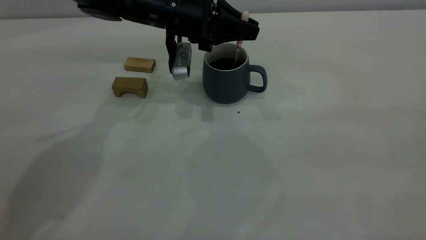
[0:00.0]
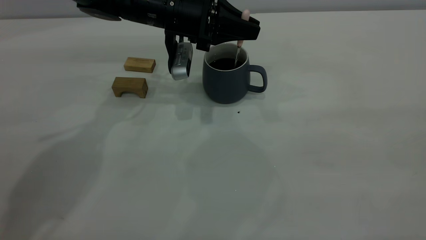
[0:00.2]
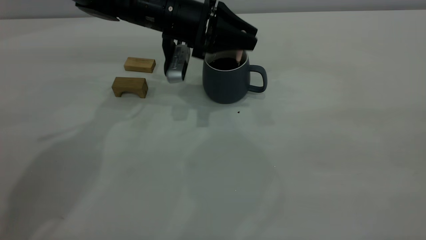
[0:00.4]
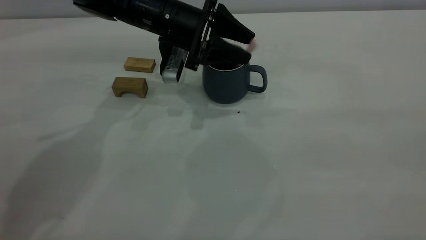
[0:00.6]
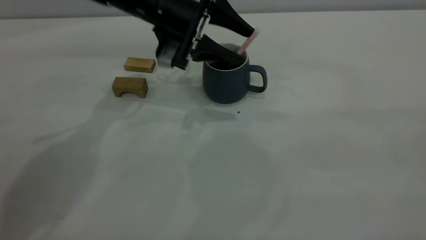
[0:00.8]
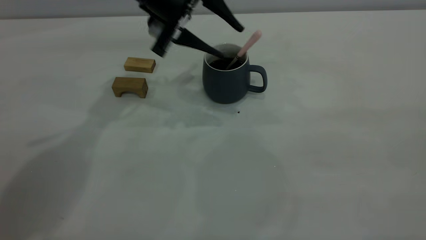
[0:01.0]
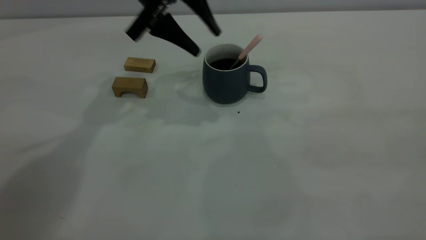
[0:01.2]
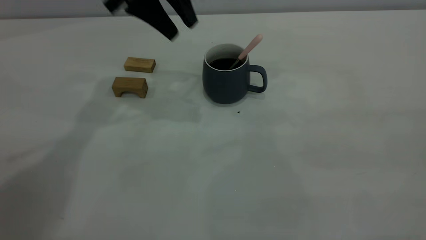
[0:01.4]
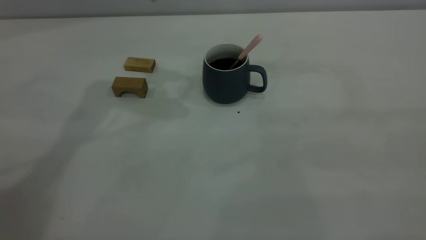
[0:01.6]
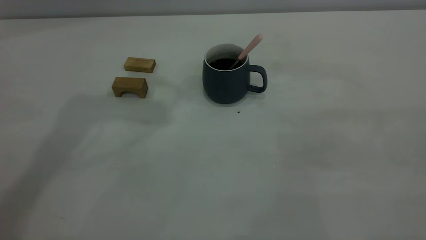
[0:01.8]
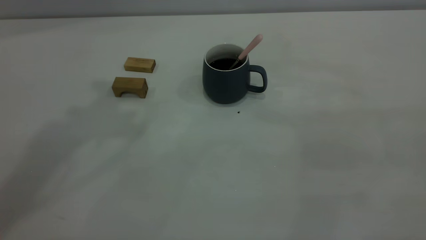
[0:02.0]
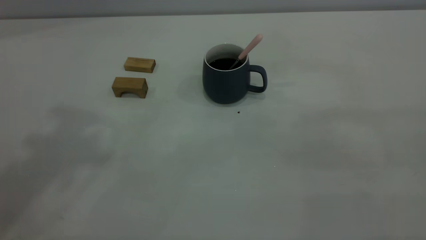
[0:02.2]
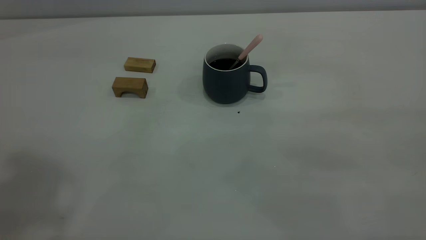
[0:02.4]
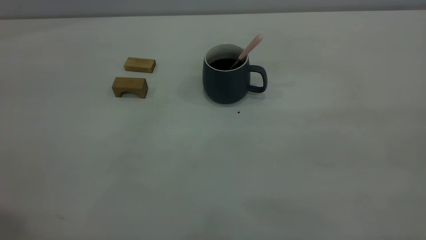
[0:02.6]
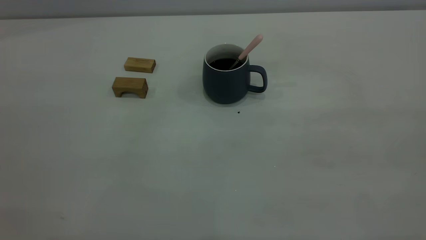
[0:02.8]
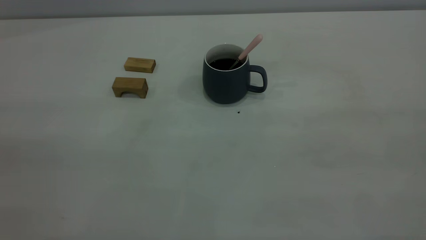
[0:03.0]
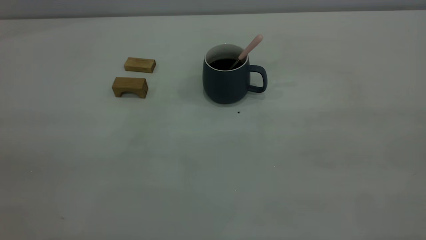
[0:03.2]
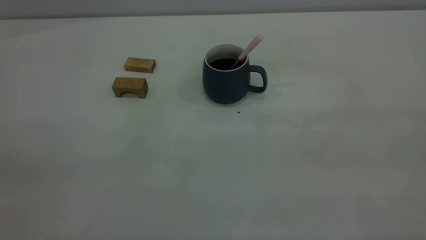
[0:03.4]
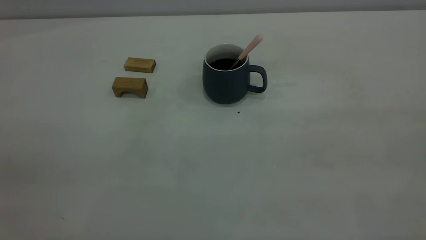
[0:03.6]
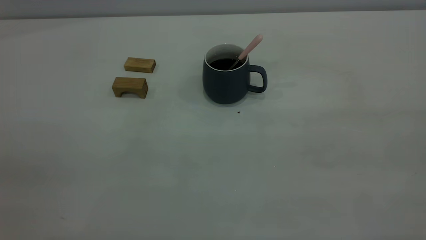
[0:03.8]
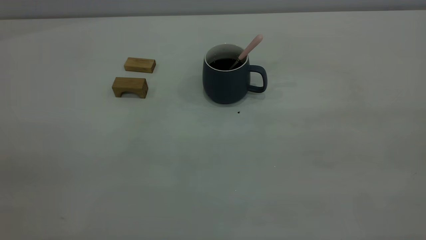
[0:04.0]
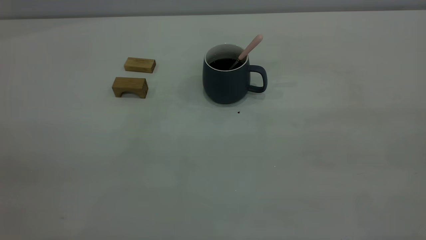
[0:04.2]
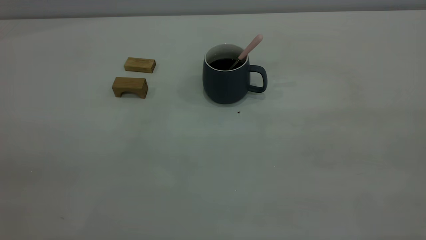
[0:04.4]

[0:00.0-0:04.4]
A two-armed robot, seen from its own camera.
0:00.0 to 0:01.4: The left gripper travels upward by about 15 cm, and opens.
0:01.4 to 0:03.0: The left gripper heads backward and to the left, covering about 40 cm.

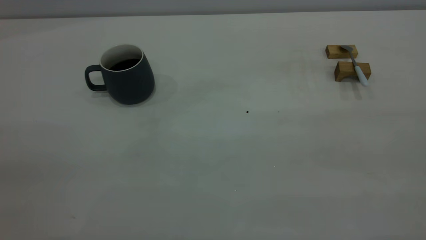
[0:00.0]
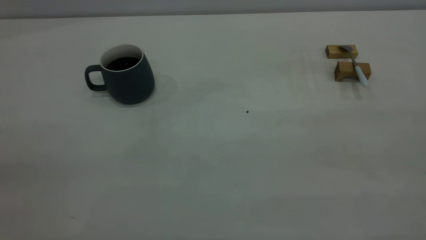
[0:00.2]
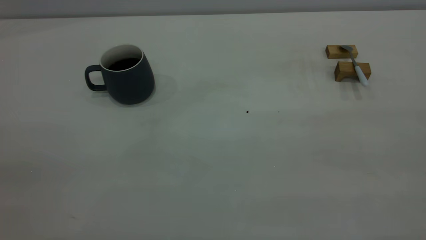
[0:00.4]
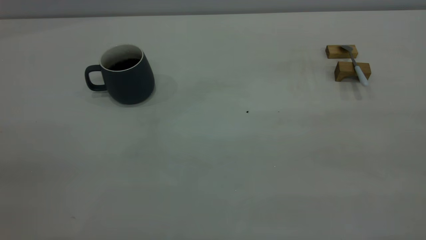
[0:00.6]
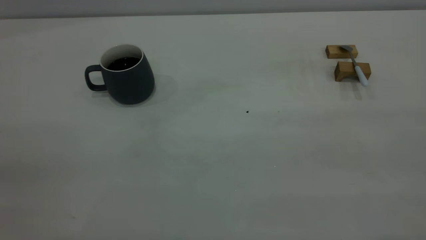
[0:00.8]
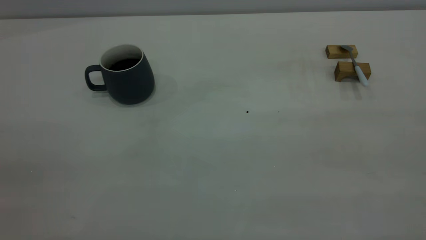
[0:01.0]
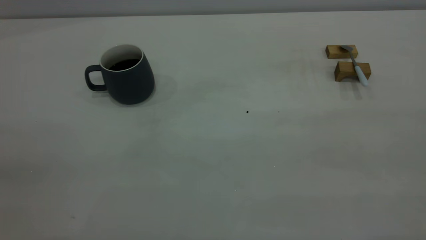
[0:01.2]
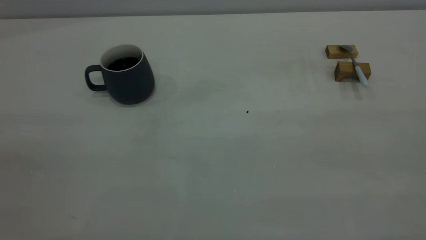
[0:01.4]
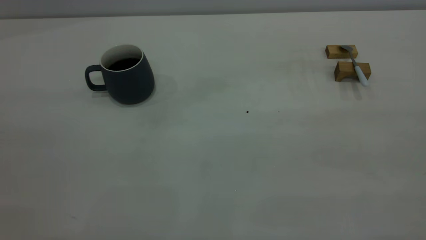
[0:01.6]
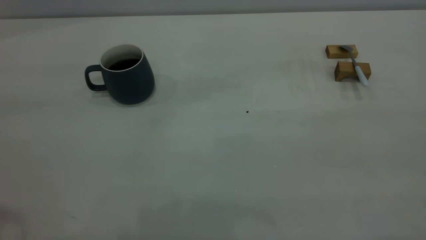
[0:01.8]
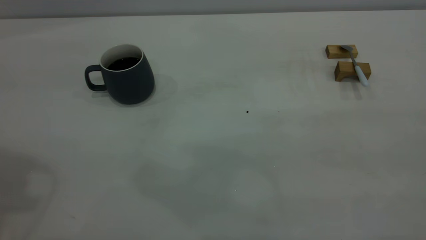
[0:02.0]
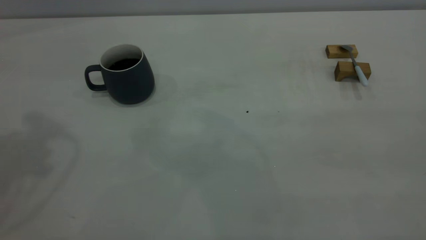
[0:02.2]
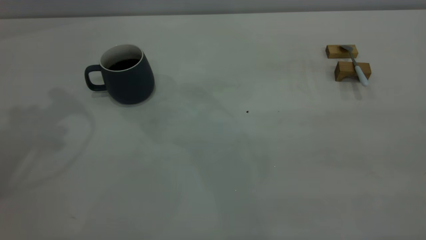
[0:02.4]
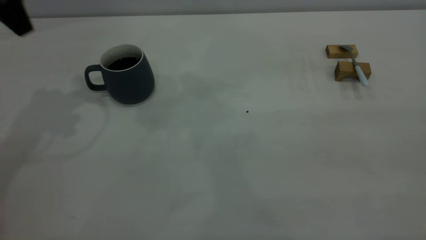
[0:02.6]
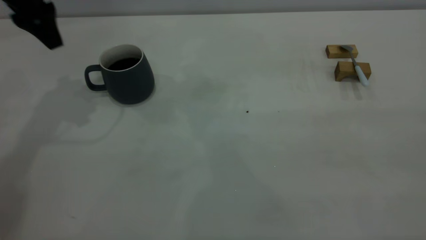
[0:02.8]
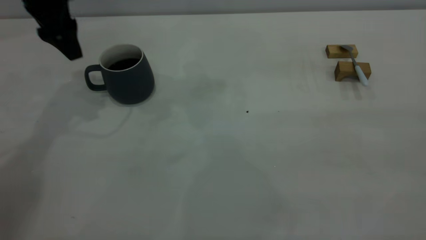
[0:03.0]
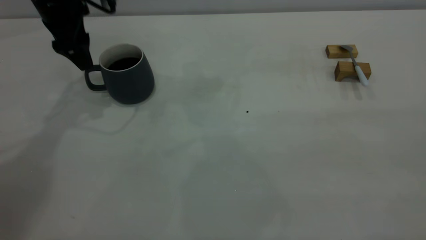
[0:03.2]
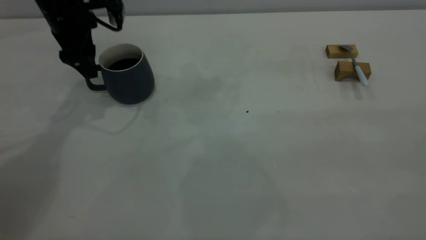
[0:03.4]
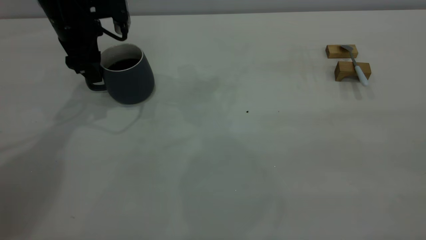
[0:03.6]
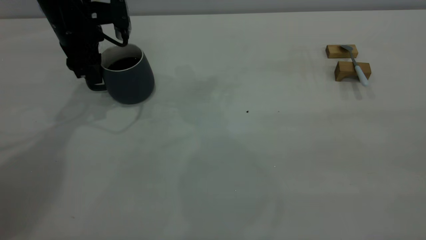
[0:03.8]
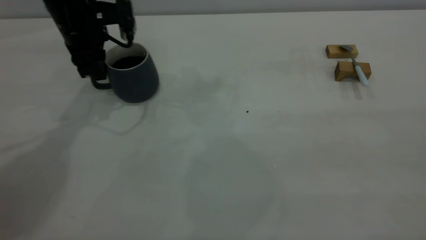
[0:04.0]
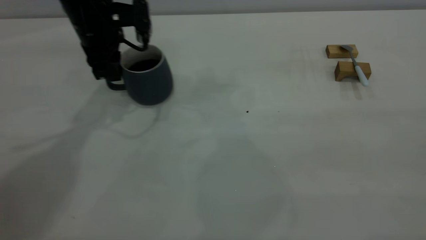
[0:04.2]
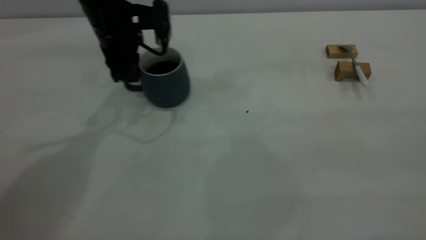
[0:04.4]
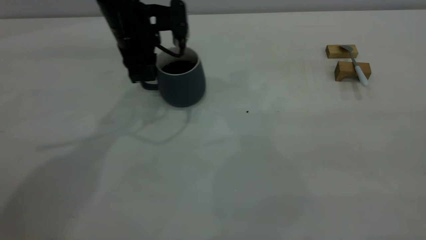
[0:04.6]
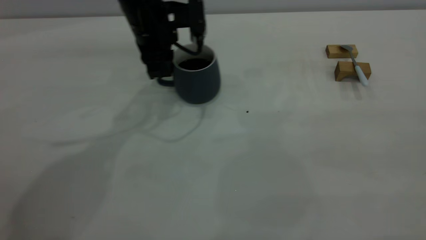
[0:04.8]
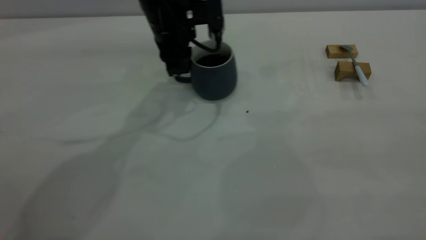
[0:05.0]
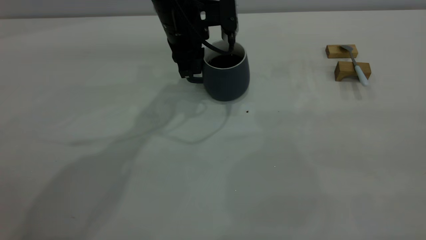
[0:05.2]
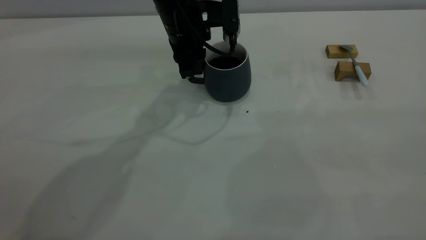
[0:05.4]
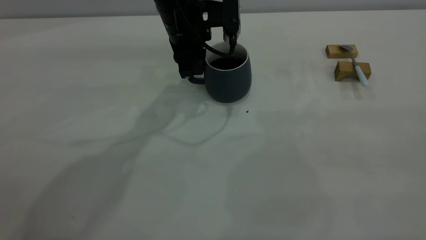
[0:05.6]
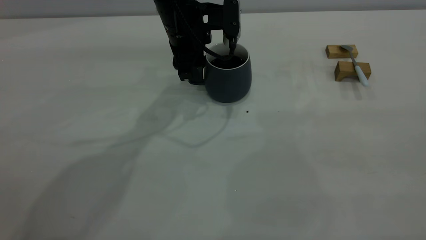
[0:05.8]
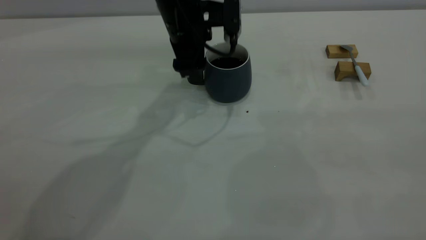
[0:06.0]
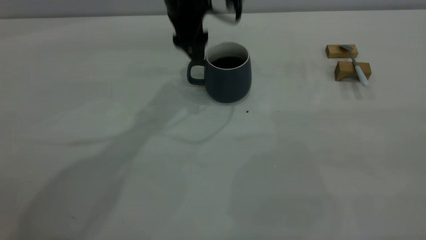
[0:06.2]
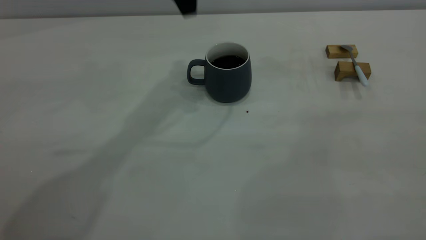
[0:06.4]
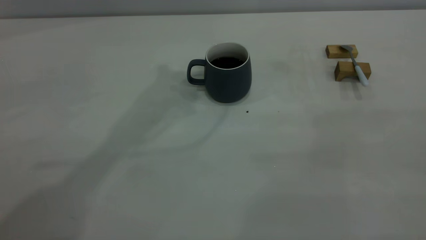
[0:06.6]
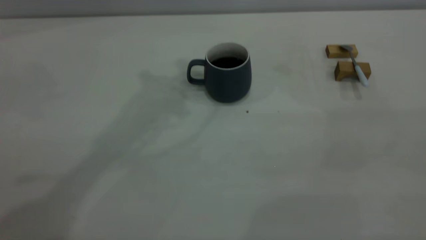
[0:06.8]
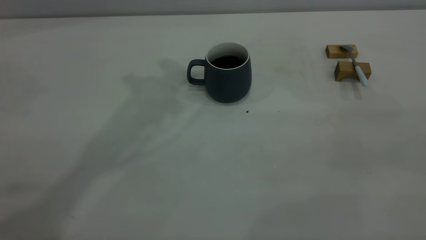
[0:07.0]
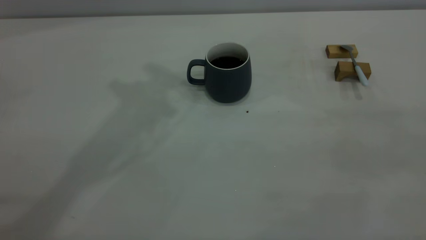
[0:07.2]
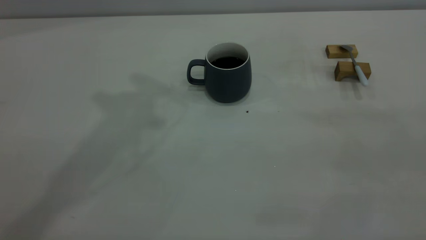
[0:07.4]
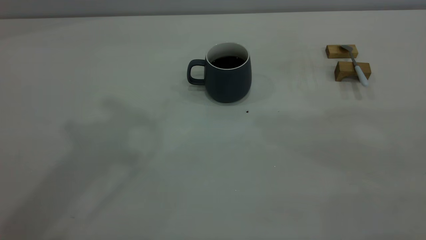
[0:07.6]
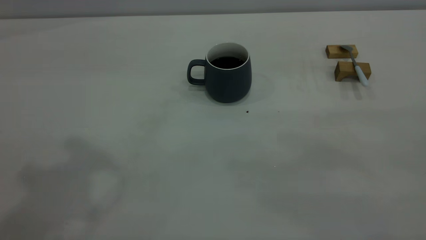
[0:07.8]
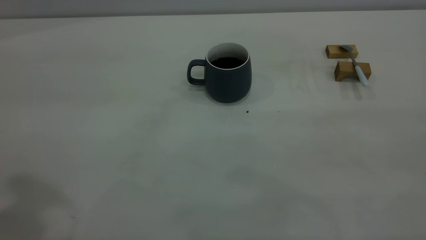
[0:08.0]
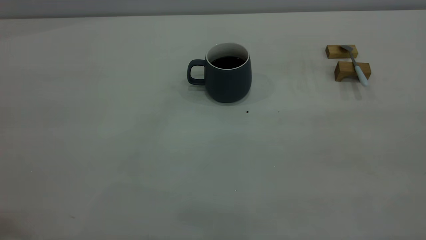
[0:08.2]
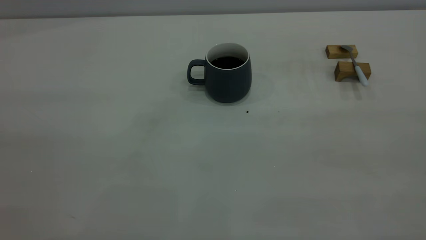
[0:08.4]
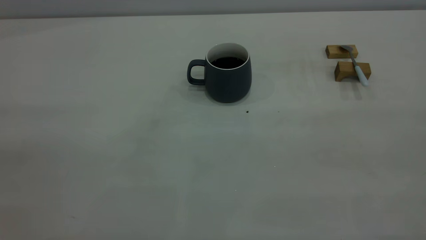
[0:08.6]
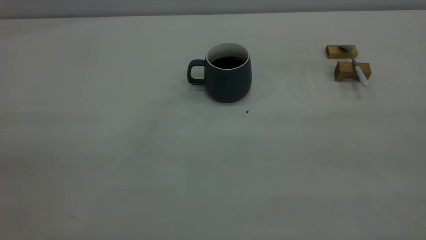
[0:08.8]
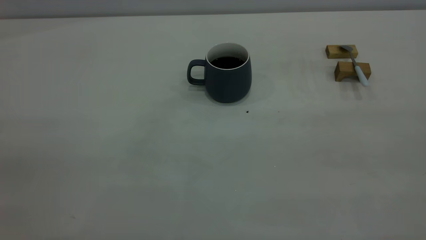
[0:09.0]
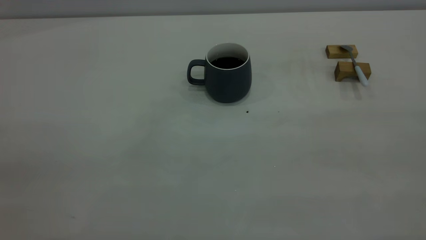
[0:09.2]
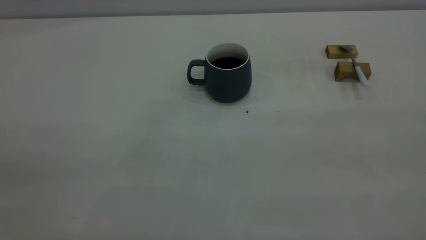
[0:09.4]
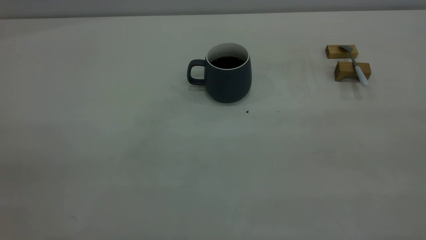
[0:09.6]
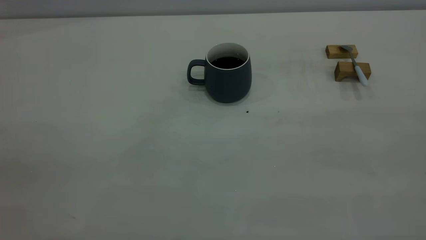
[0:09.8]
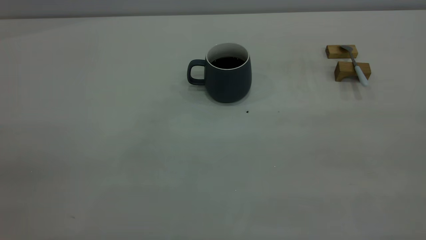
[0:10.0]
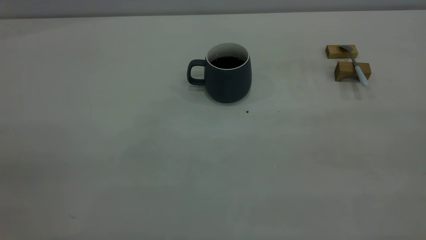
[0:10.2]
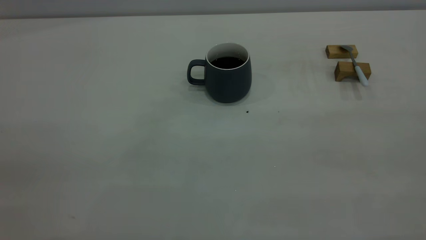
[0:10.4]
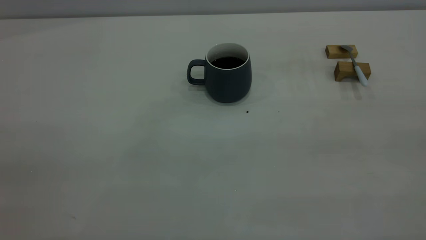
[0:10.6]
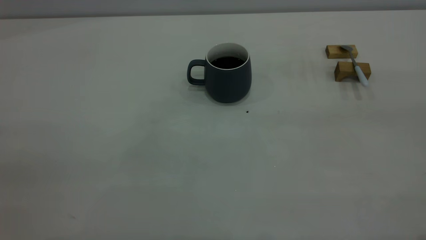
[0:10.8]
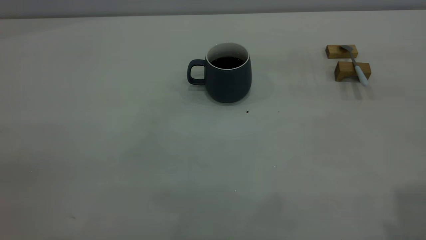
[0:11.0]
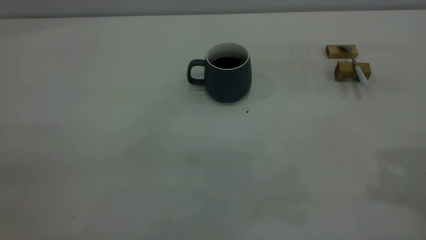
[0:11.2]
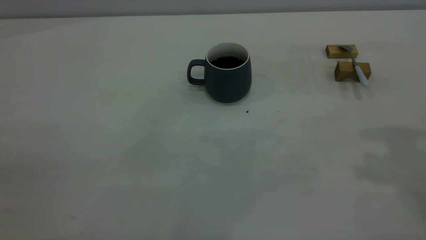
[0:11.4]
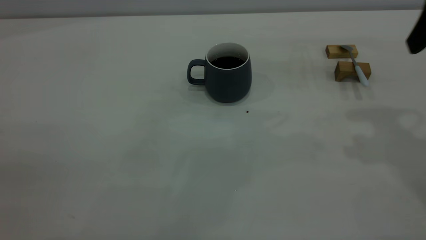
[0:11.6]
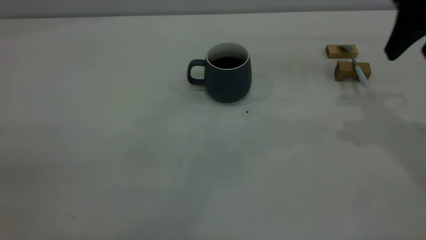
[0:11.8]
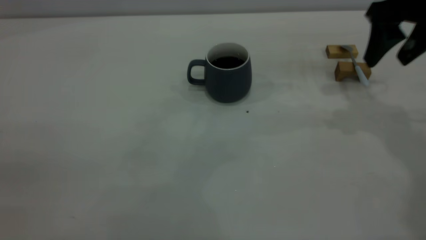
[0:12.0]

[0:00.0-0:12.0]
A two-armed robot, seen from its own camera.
Step, 0:00.0 to 0:06.2: Move the cup with coffee to the center of view.
0:01.6 to 0:03.0: The left gripper moves forward and downward, some 40 cm, and opens its fingers.
0:03.0 to 0:04.4: The left gripper travels to the right and downward by about 10 cm, and closes.
0:04.4 to 0:06.0: The left gripper heads to the right, covering approximately 10 cm, and opens.
0:06.0 to 0:07.6: The left gripper is displaced upward and backward by roughly 35 cm, and closes its fingers.
0:09.0 to 0:10.4: Both grippers stay about where they are.
0:10.4 to 0:12.0: The right gripper shifts approximately 40 cm forward and downward, and opens its fingers.
